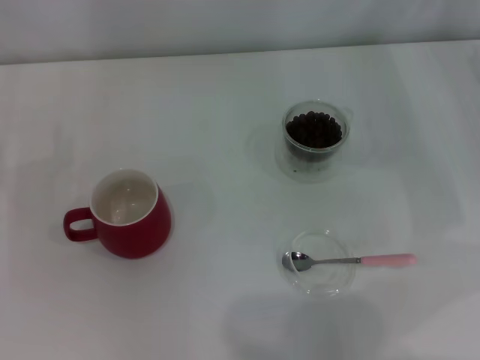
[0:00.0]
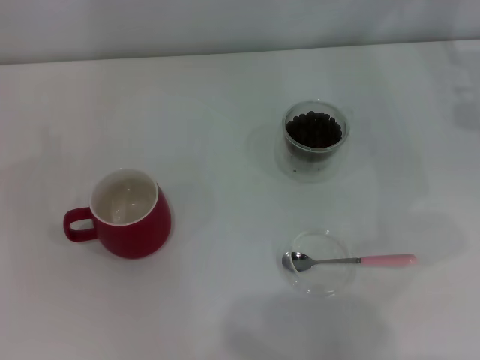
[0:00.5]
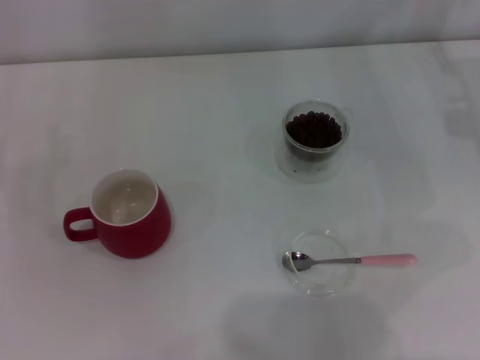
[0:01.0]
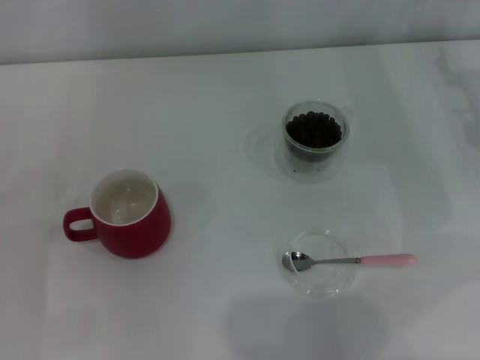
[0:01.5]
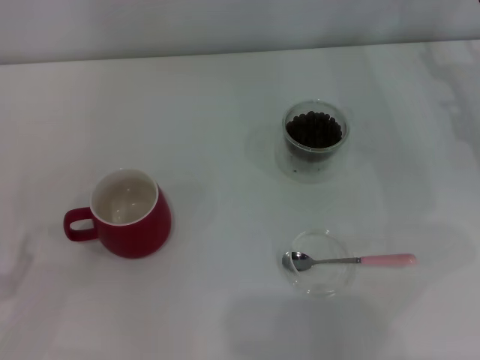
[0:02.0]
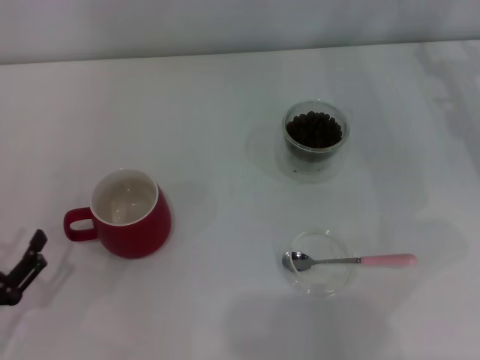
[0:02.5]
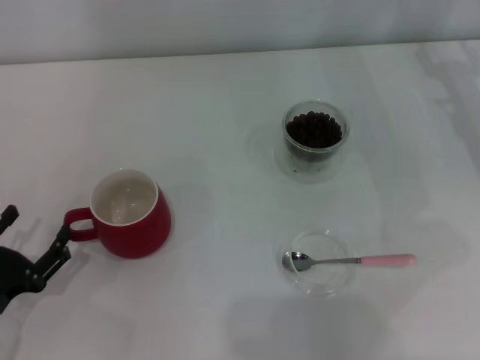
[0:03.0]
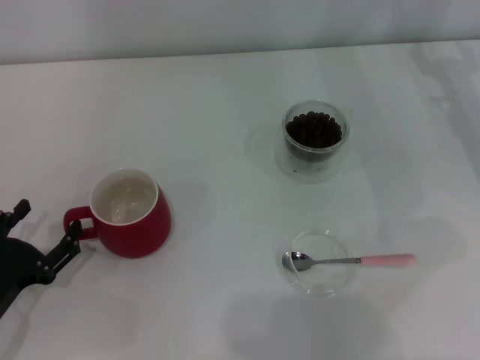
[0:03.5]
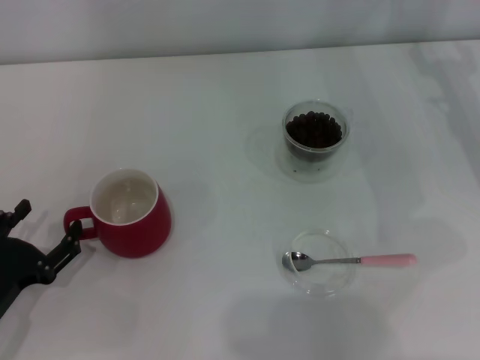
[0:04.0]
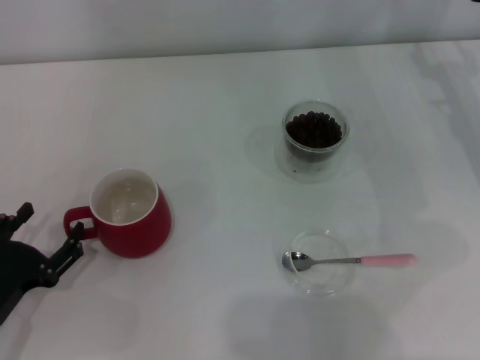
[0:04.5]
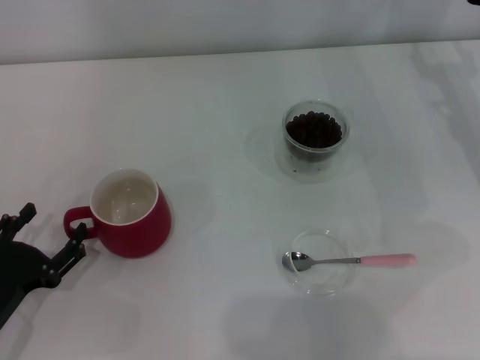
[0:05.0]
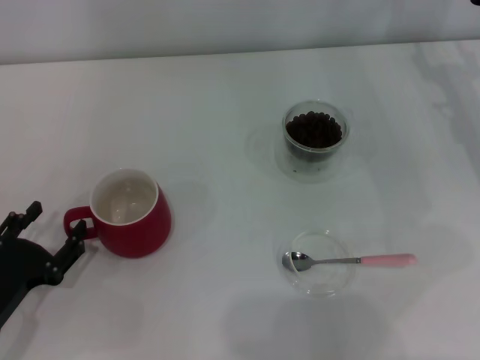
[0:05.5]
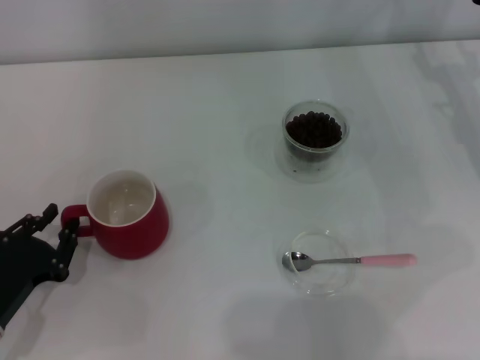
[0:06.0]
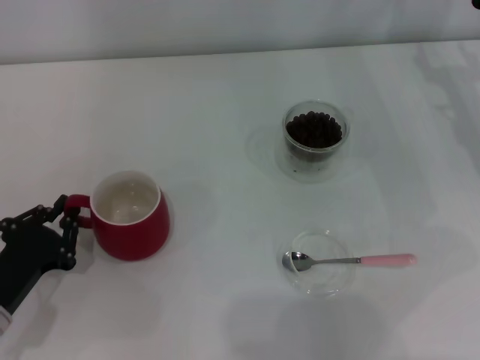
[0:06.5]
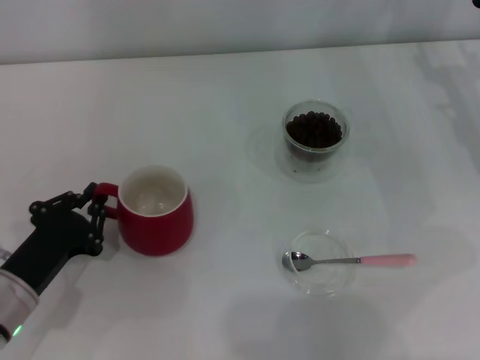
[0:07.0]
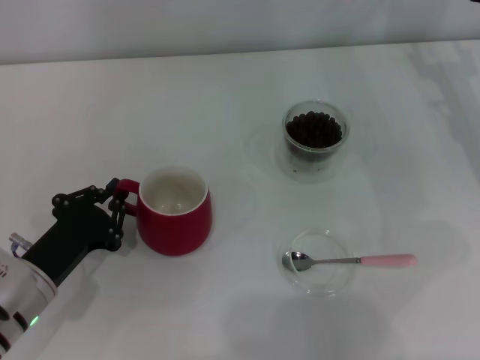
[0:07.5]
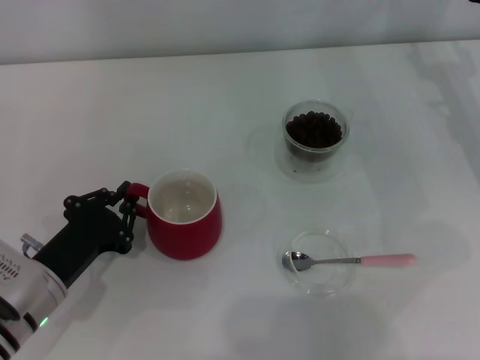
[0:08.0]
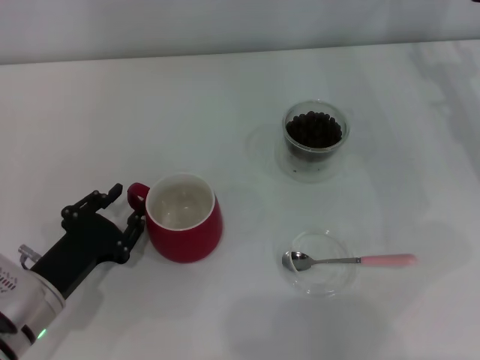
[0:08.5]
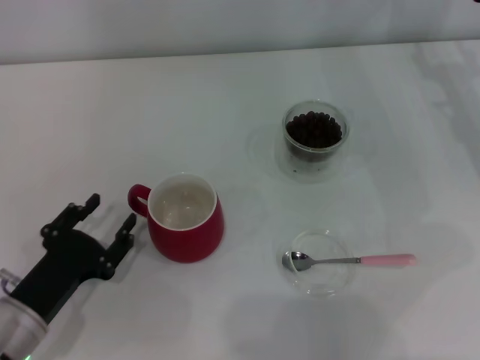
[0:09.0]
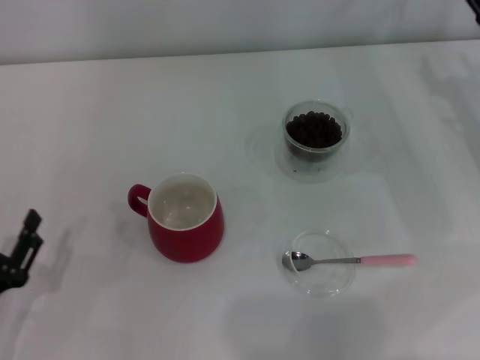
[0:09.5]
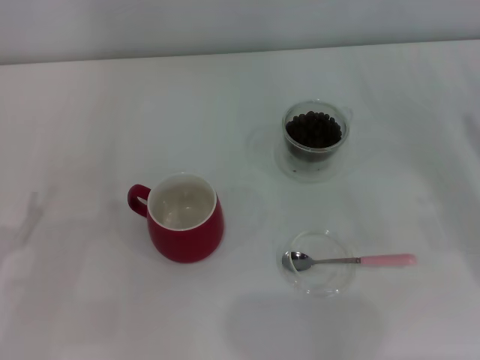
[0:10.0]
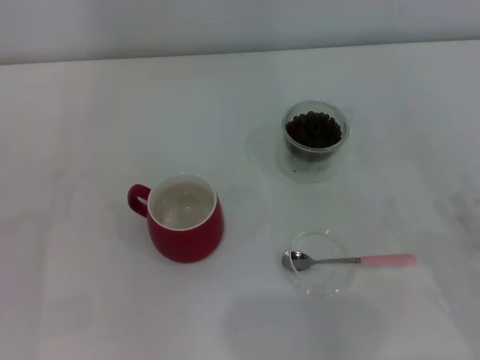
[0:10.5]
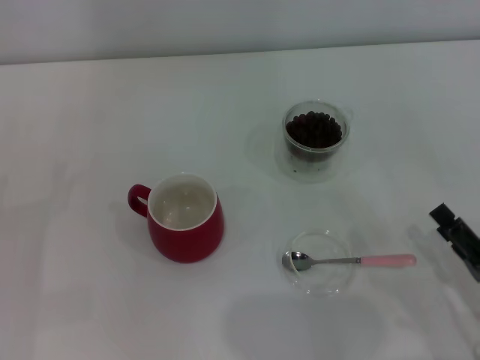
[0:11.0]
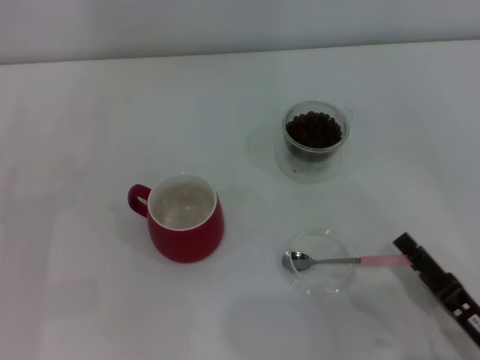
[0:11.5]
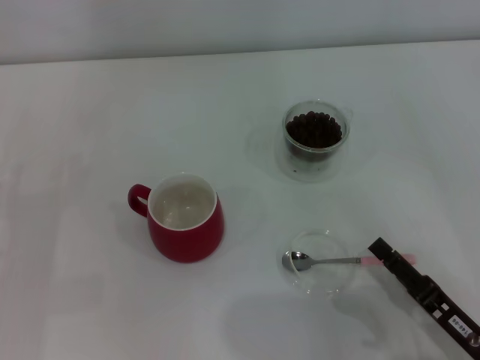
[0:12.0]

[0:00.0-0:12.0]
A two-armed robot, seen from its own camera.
Task of the whole recording: Use a pink spoon to take out the coffee beans from the glass and pour them into the red cup.
Step, 0:00.0 to 0:08.5: Move the cup to the center of view with the left gripper.
0:02.0 to 0:04.0: The left gripper shifts by approximately 5 cm.
0:04.0 to 0:06.0: The left gripper closes.
0:06.0 to 0:08.0: The left gripper travels to the right by about 5 cm, and closes up.
0:08.0 to 0:10.0: The left gripper shifts roughly 10 cm to the left, and opens. Meanwhile the right gripper travels backward by roughly 15 cm.
0:10.0 to 0:12.0: The right gripper is displaced backward, to the left and downward by roughly 20 cm.

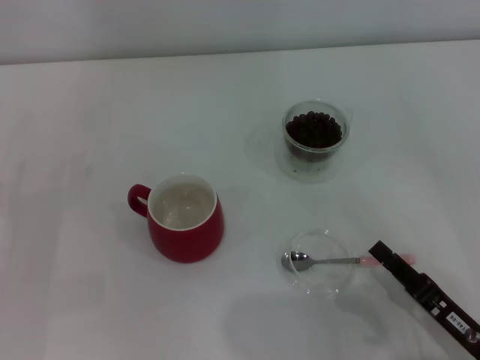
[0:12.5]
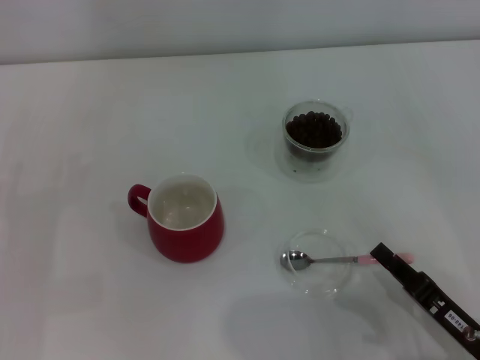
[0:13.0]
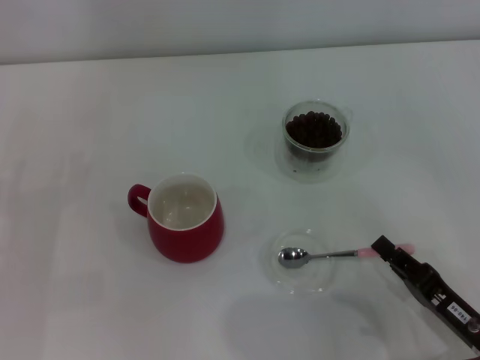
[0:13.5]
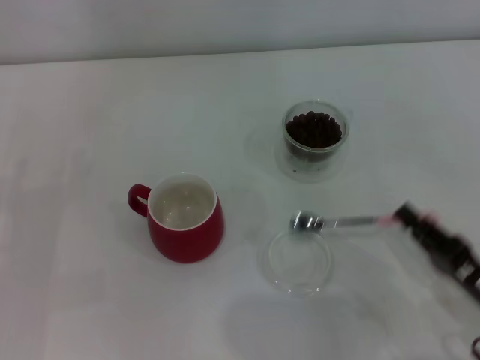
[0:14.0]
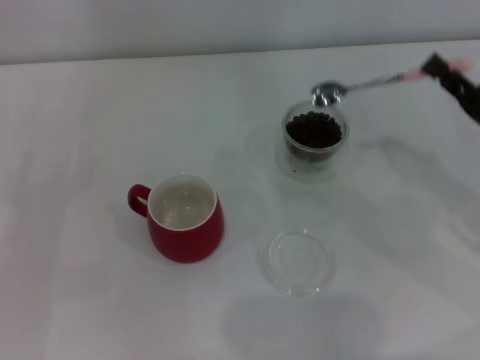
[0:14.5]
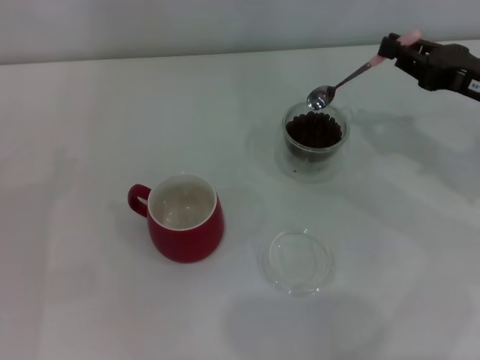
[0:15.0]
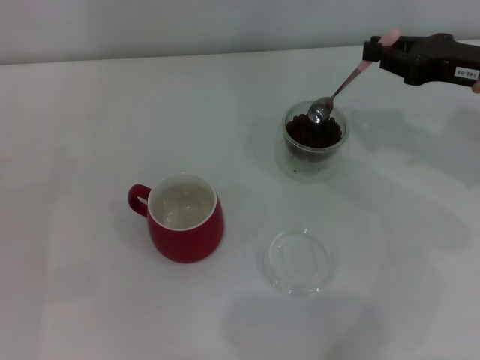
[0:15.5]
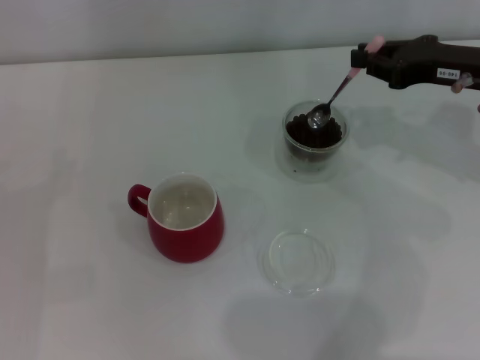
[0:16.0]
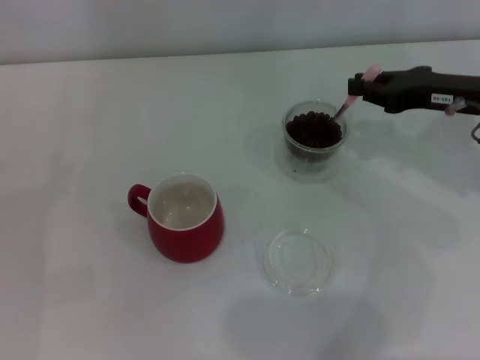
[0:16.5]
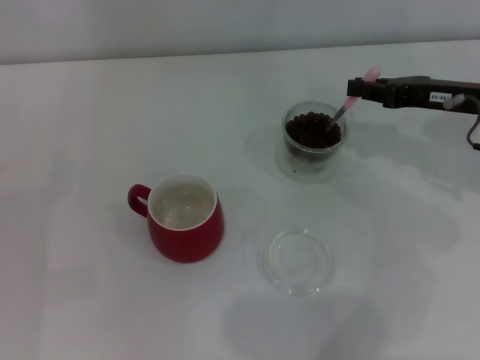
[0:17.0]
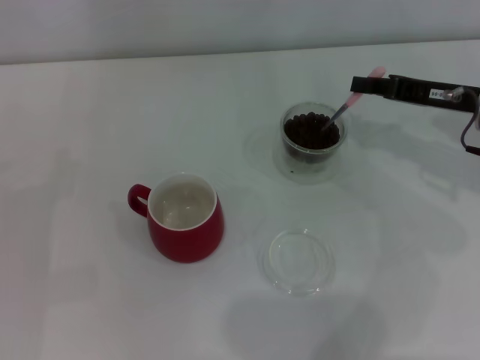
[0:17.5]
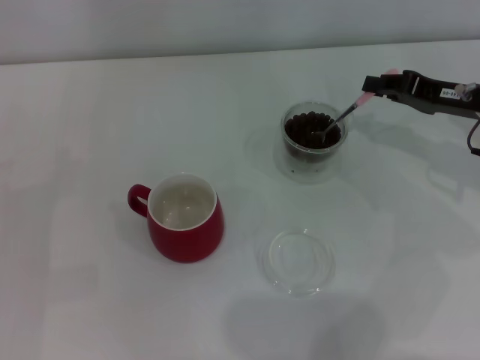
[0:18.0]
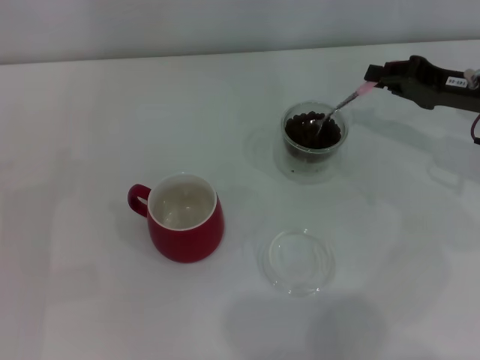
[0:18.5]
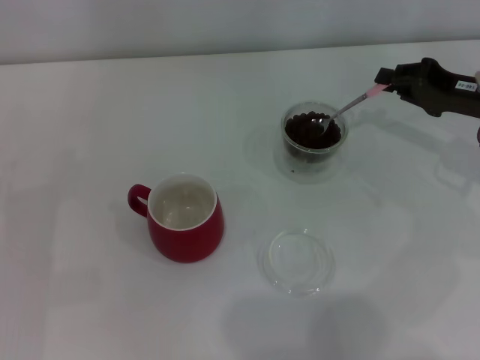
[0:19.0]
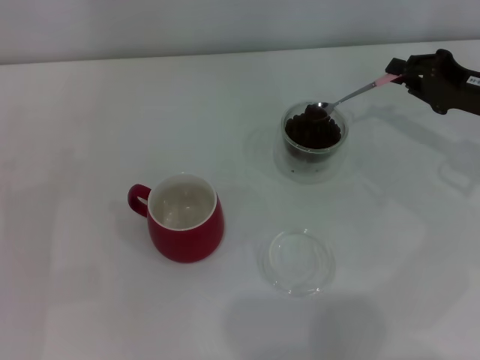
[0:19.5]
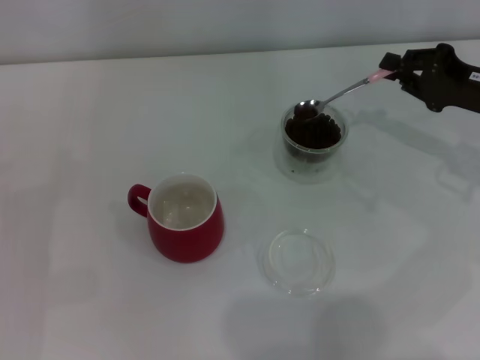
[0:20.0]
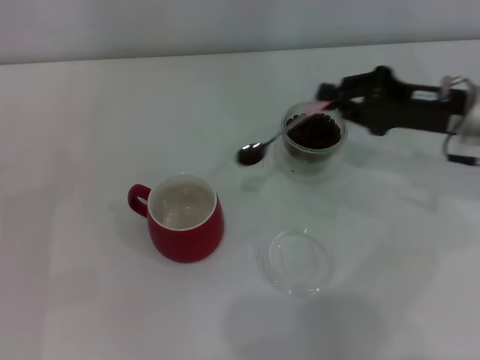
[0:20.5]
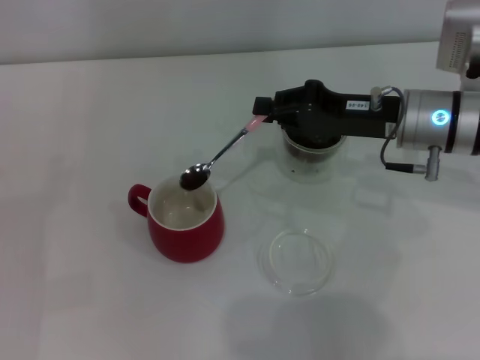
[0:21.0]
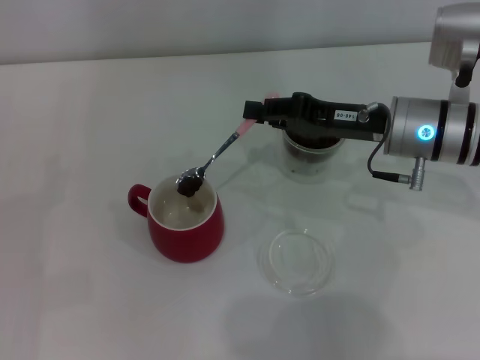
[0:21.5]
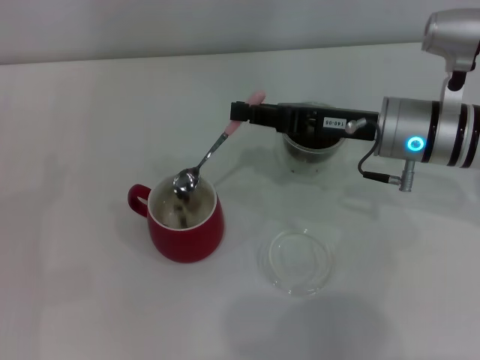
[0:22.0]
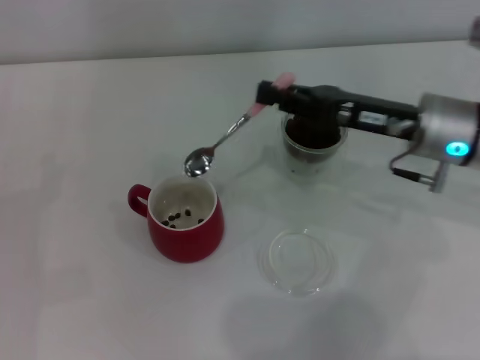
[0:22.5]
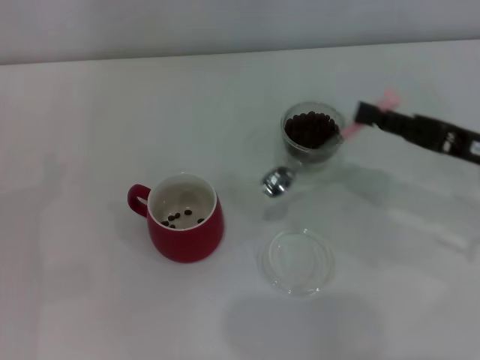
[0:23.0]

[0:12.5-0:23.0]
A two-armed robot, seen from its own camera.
Task of the whole recording: Use a pink spoon to take out the coffee beans from the glass and pour them into the red cup.
Step, 0:14.0 to 0:22.0: Scoop a spoonful of beans into the cup with the right gripper.
0:12.5 to 0:14.5: The right gripper travels forward, upward and to the right by some 20 cm, and closes up.
0:14.5 to 0:16.5: The right gripper heads forward, covering some 10 cm.
0:19.0 to 0:21.0: The right gripper is displaced to the left by approximately 10 cm.
0:21.0 to 0:23.0: The right gripper goes roughly 10 cm backward and to the right.

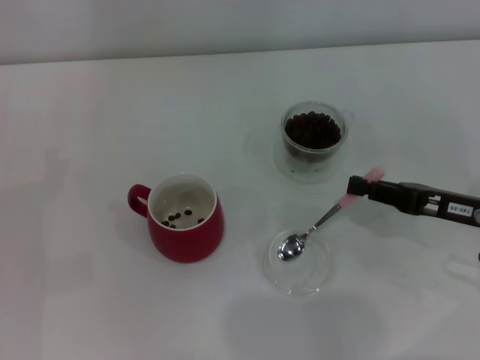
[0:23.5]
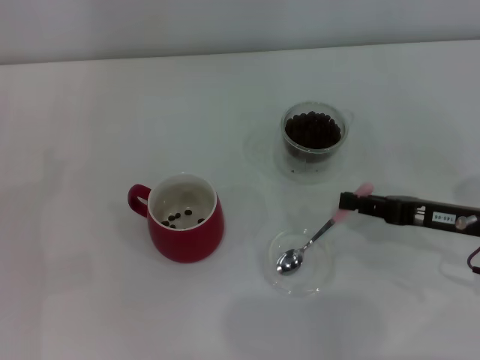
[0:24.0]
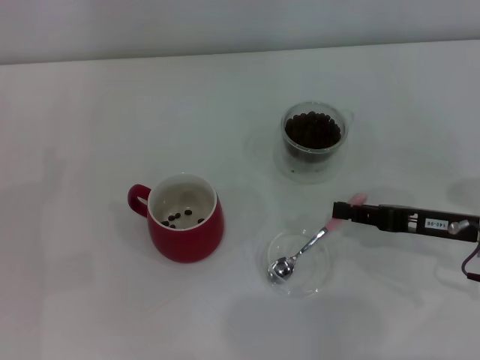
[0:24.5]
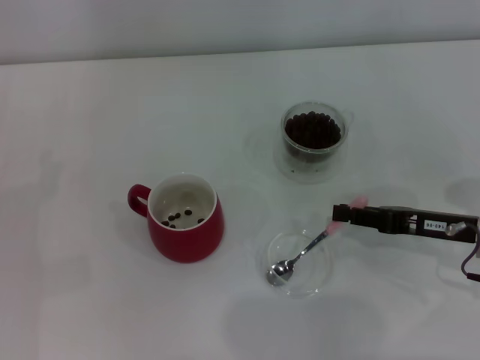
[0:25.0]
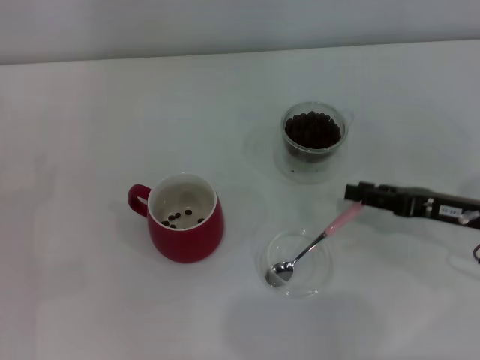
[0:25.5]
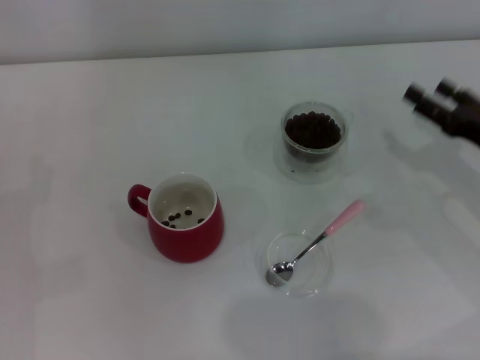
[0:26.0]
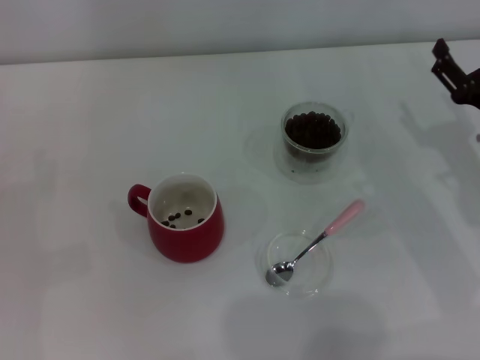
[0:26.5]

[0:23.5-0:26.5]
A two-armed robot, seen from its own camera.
Task of the whole recording: Use a pink spoon to take out the coffee beans from the glass and pour them into the red cup.
Step, 0:23.5 to 0:25.5: Place the spoon back in its original place with the right gripper.
0:23.5 to 0:25.0: There are only small adjustments of the grippers.
0:25.0 to 0:26.5: The right gripper opens its fingers.
